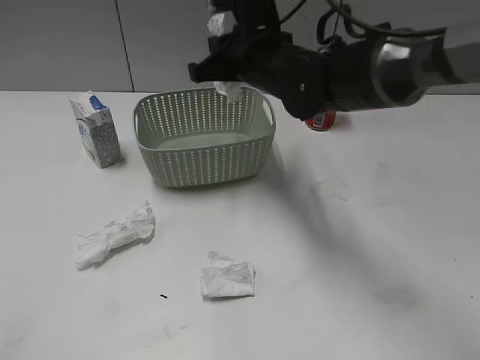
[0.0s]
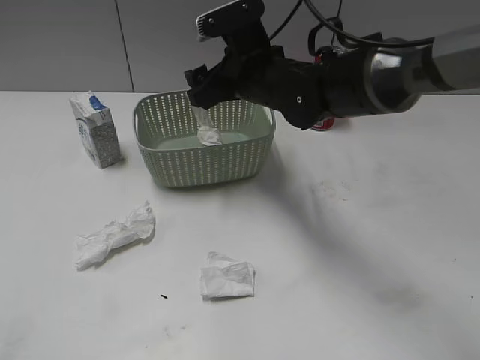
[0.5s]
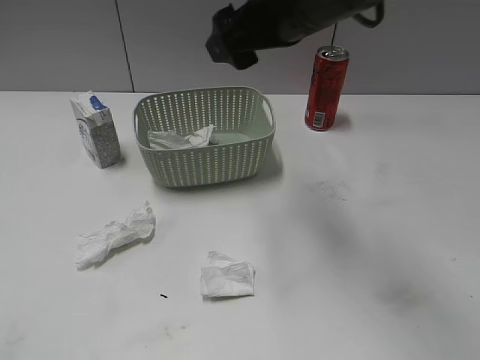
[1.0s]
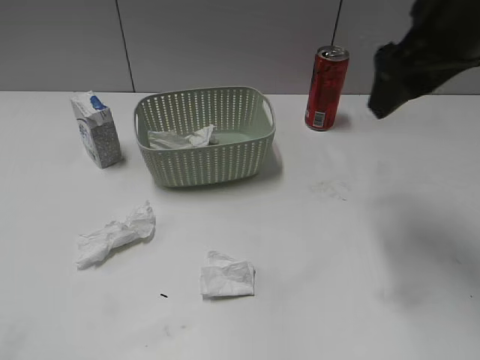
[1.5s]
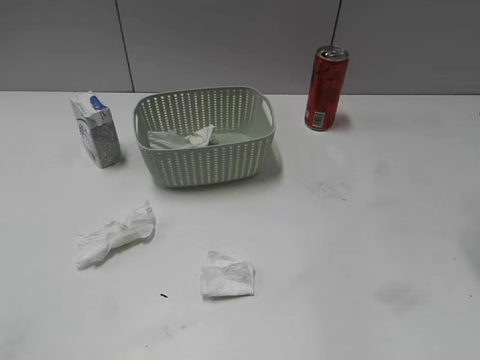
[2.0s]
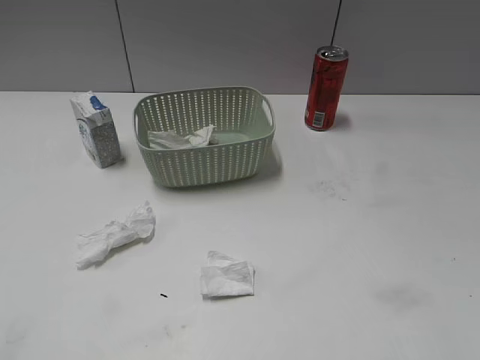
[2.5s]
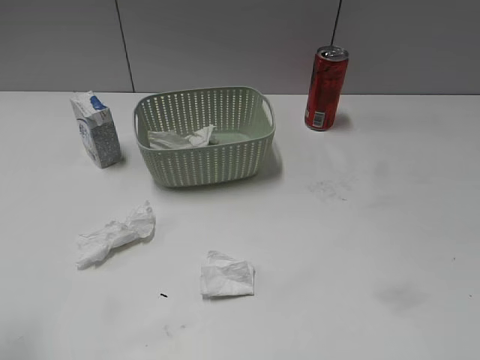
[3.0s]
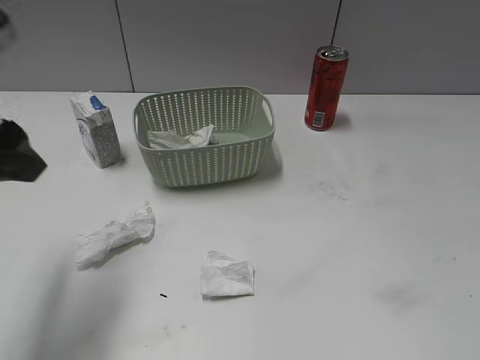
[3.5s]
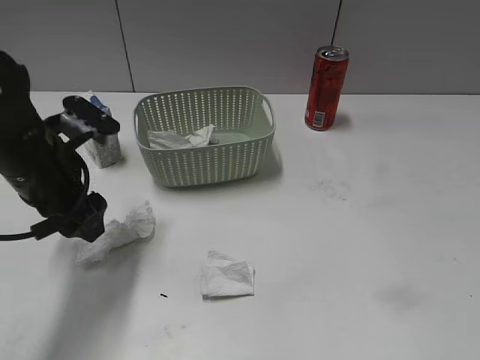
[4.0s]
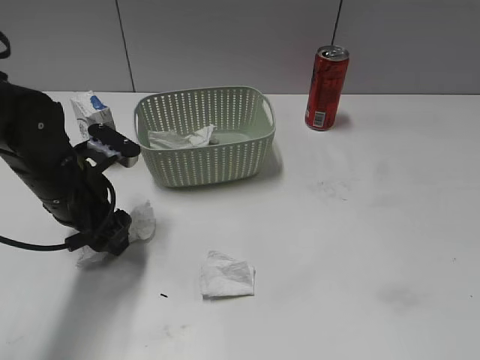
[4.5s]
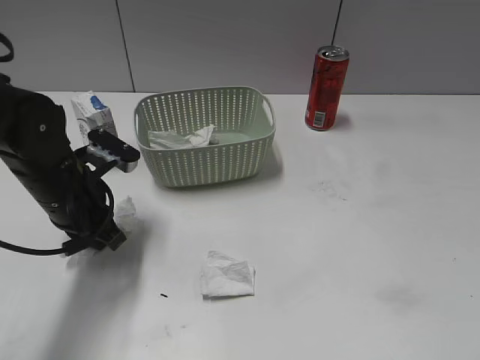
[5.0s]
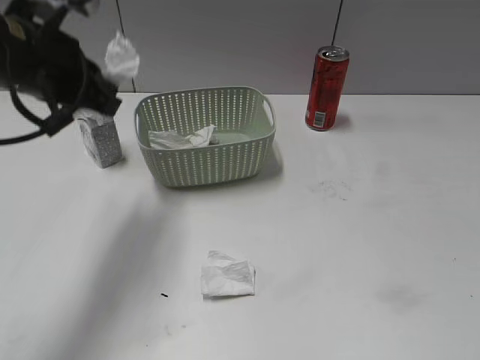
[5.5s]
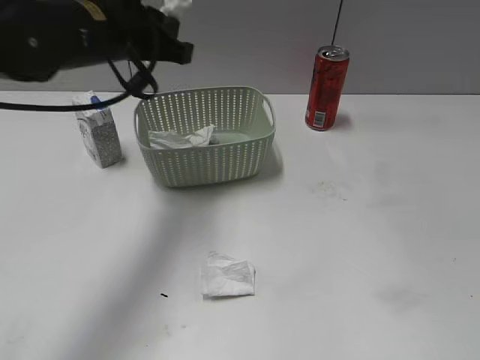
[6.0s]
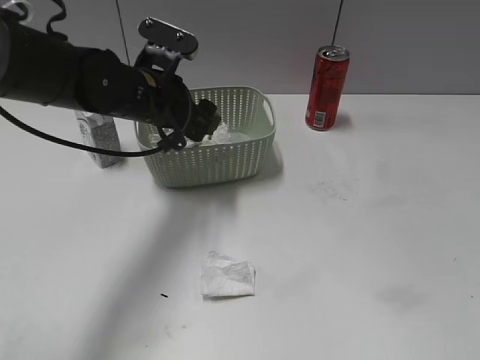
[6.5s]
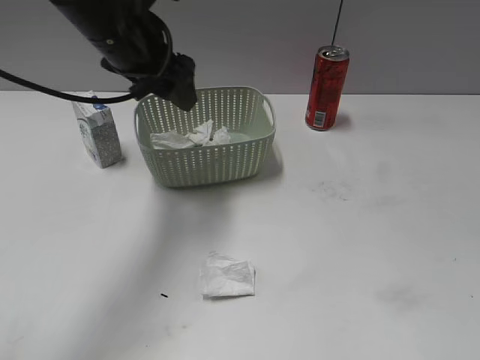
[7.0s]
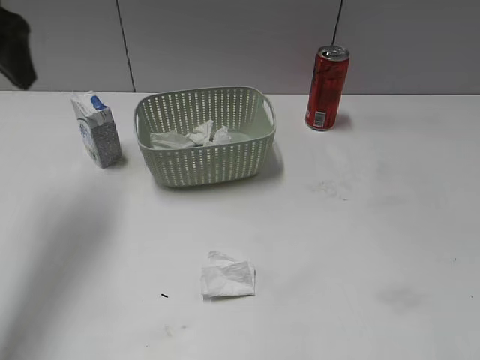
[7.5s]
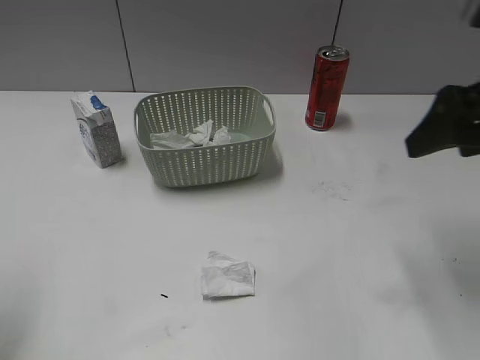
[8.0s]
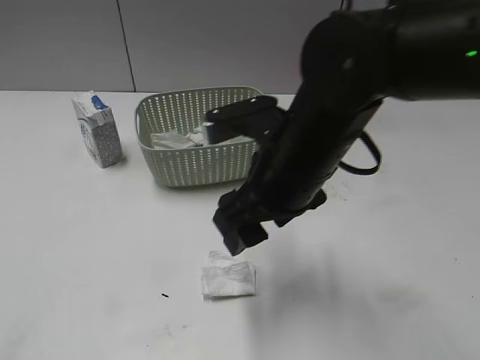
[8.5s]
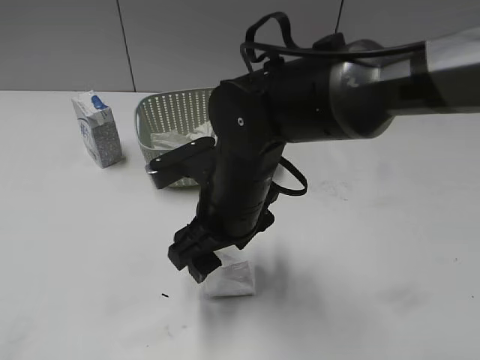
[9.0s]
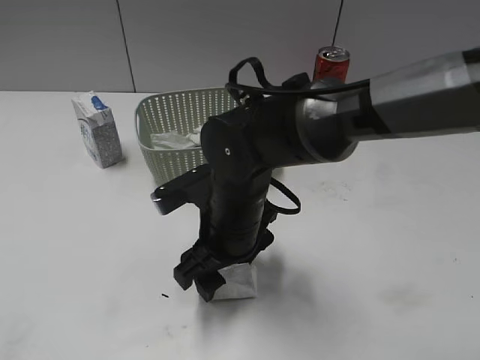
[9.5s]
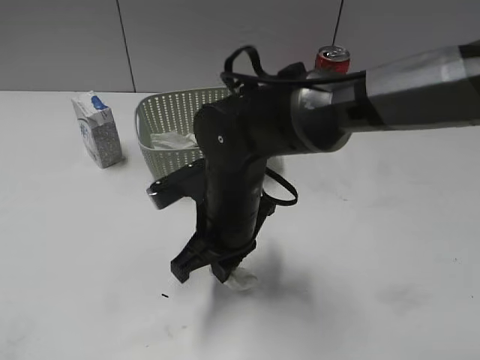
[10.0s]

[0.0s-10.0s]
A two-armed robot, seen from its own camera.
Step, 1.0s to 5.0s: Grasp the waste paper with left gripper.
Step, 5.5s to 6.5s: Place the waste paper in the basket with left gripper.
Step, 7.0s to 9.5s: Grasp the waste paper with right gripper.
0.0s to 2.0s: The right gripper shifts approximately 30 cm to the right and upward, and opens.
2.0s to 4.0s: The left gripper travels forward, to the right and downward by approximately 35 cm.
4.0s to 6.0s: The left gripper travels upward, forward and to the right by roughly 15 cm, and closes its fingers.
6.0s to 8.0s: The left gripper travels to the left, backward and upward by roughly 30 cm, and opens, while the right gripper goes approximately 25 cm forward.
8.0s to 10.0s: The left gripper travels backward by approximately 20 cm; the right gripper moves to the left and downward, some 30 cm, and closes up.

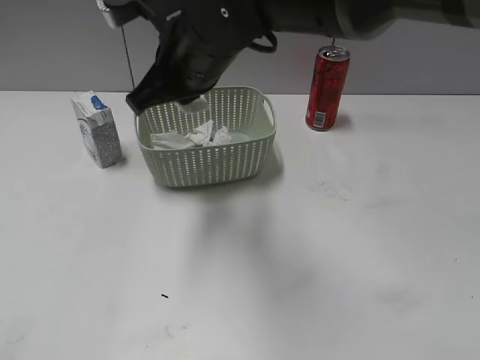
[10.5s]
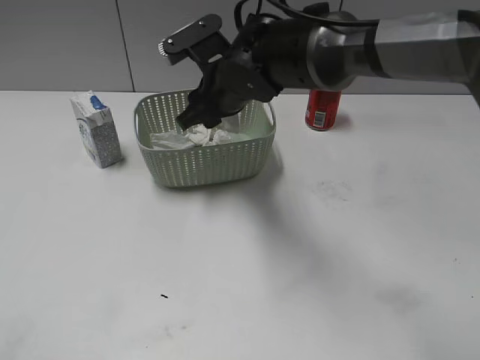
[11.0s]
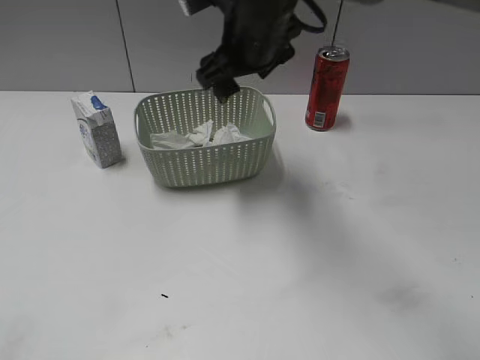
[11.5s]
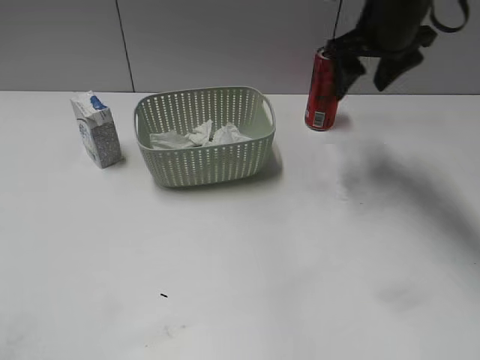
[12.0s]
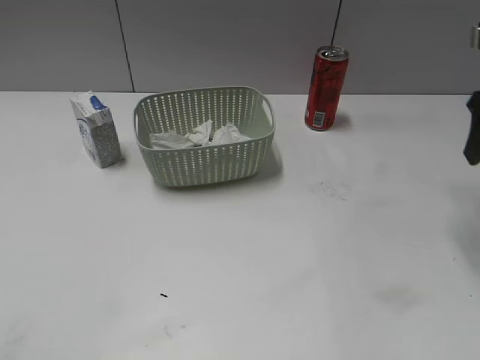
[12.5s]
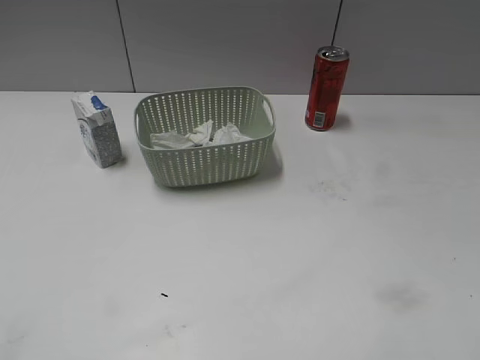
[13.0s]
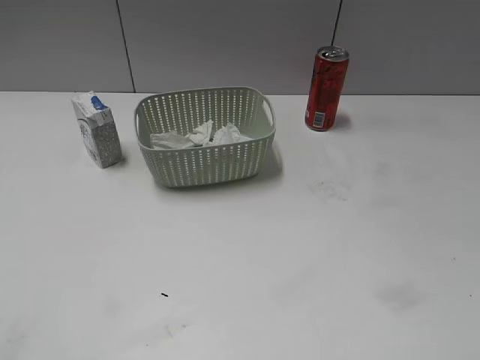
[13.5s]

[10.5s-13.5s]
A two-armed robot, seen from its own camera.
10.5s to 12.0s: The right gripper goes about 25 cm to the right and forward, and opens up.
12.0s to 13.5s: The right gripper shifts approximately 35 cm backward.

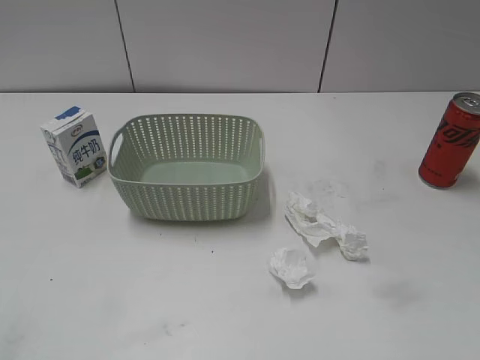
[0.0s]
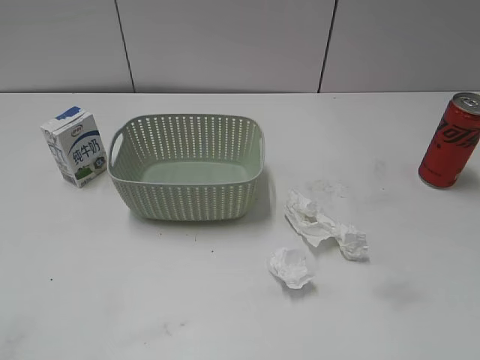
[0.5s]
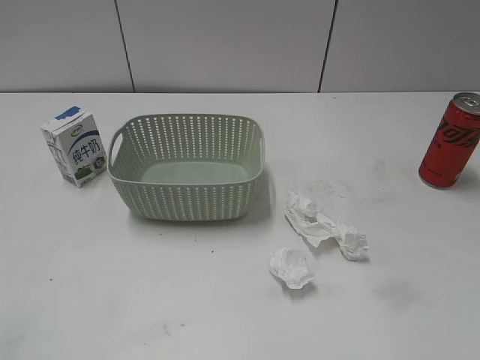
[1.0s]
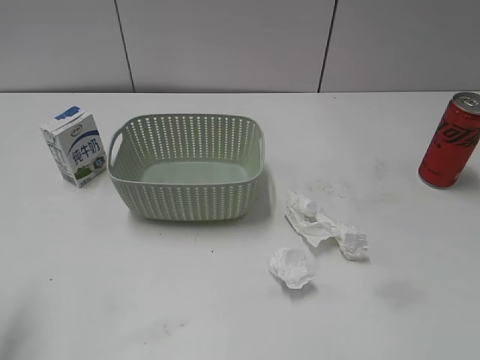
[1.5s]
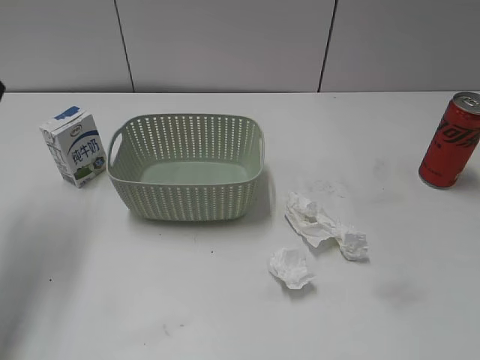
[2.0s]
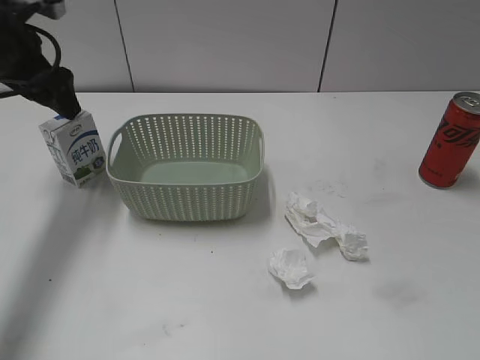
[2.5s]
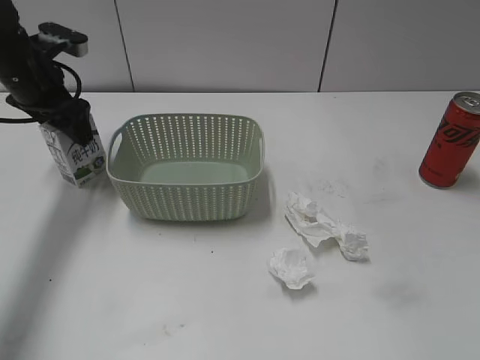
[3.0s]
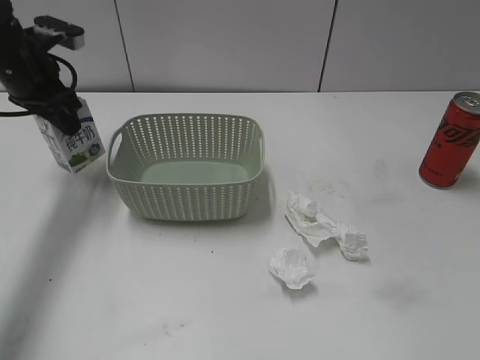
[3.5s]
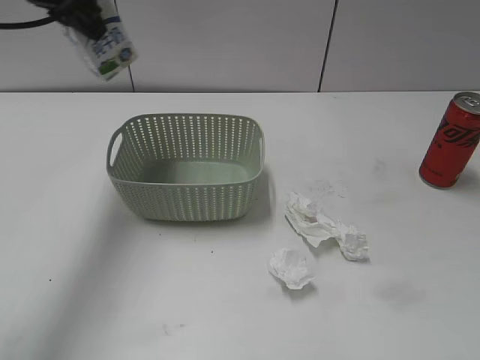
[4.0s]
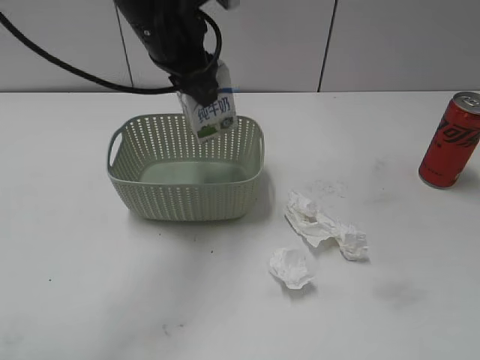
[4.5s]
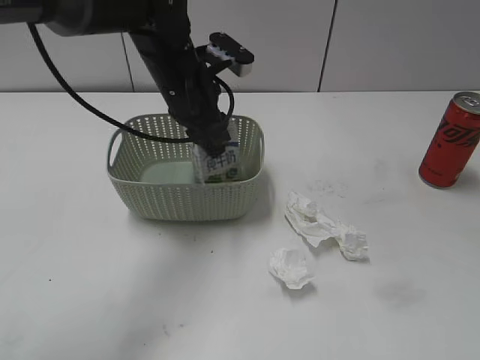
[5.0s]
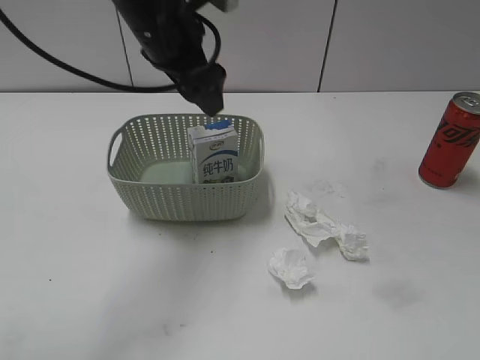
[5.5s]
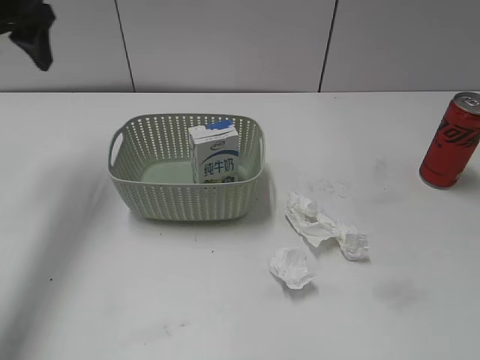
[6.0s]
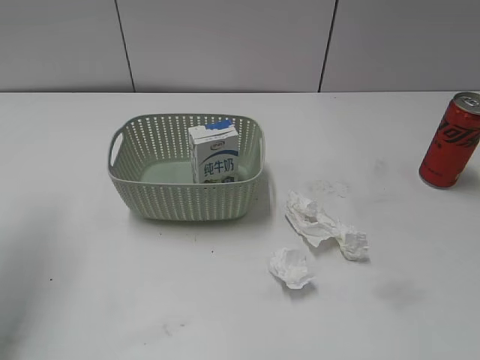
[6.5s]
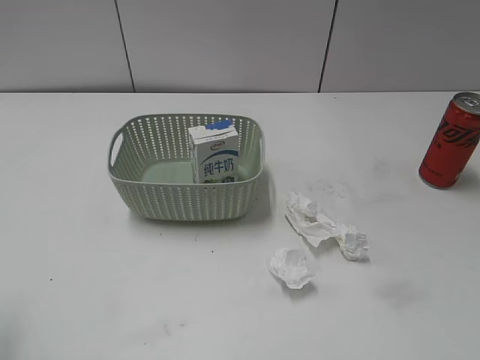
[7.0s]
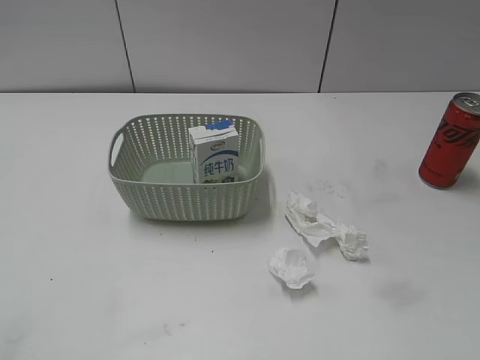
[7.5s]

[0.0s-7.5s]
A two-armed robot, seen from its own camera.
Step, 2.0s to 3.0s: Grasp the milk with left gripper.
Step, 3.5s to 5.5s: Place the milk in the basket with left gripper.
2.0s to 4.0s: The left gripper heads forward and to the right, covering some 15 cm, and closes up.
4.0s to 5.5s: The left gripper heads to the right and downward, covering some 15 cm, and opens up.
5.5s to 7.5s: The left gripper travels backward and to the left by approximately 40 cm.
